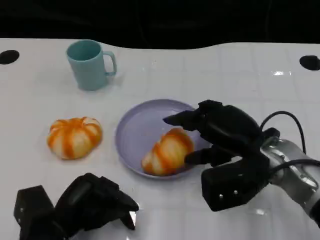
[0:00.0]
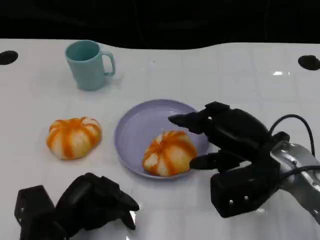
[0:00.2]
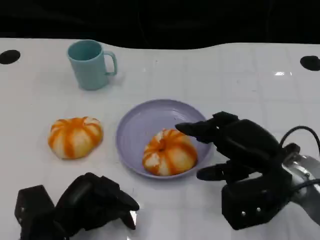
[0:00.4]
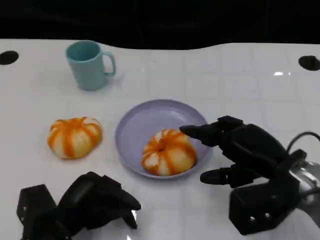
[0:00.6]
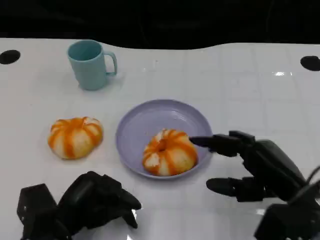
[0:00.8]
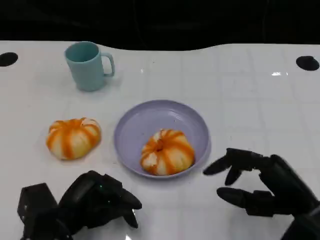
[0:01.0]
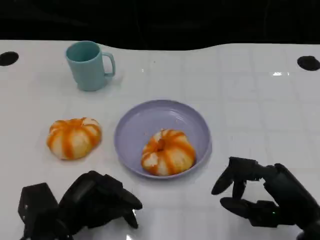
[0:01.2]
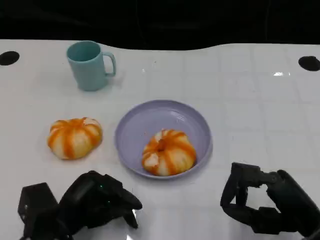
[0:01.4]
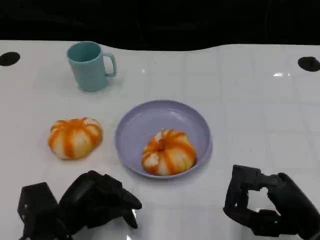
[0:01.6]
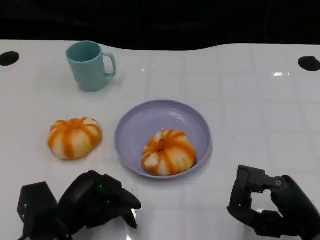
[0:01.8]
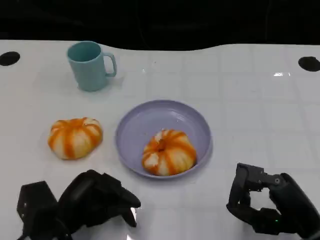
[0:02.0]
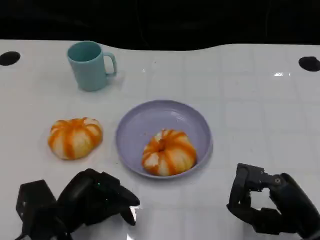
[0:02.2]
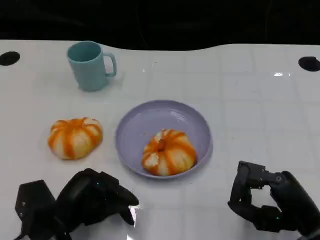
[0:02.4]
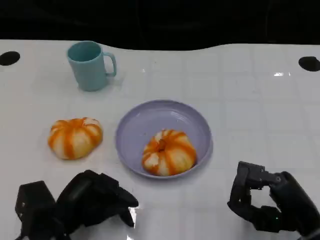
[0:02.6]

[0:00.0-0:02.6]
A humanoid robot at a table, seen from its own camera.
Task of the whole recording: Grasp the bread from the table and place it into the plate.
0:00.0 to 0:01.2: The right hand is displaced backward and to the right by approximately 10 cm.
0:01.2 to 0:02.6: There are only small adjustments of the hands.

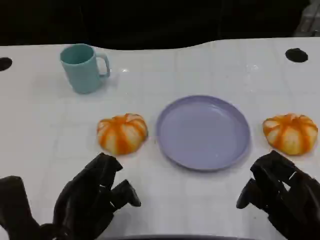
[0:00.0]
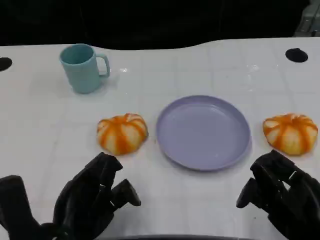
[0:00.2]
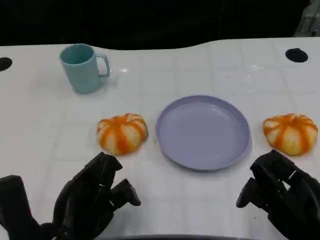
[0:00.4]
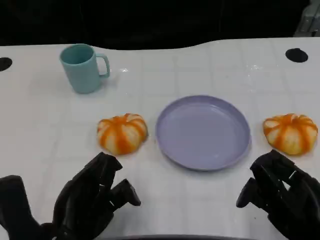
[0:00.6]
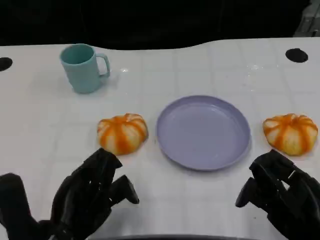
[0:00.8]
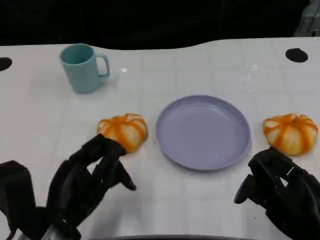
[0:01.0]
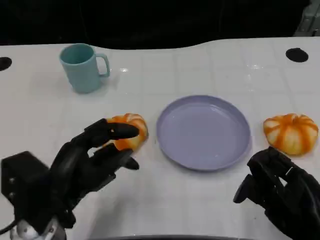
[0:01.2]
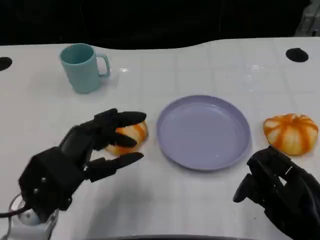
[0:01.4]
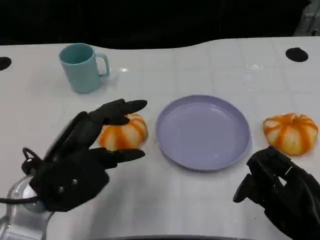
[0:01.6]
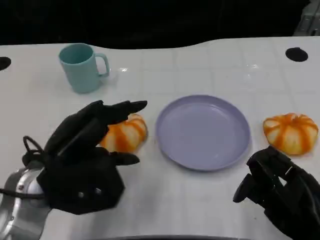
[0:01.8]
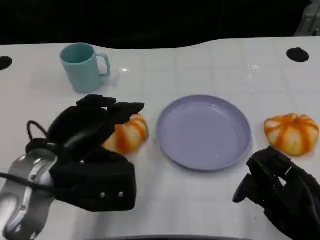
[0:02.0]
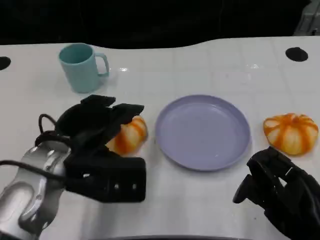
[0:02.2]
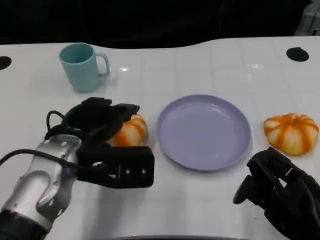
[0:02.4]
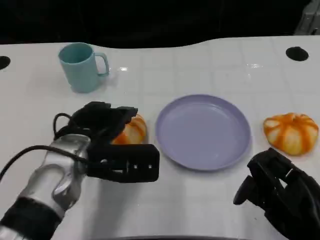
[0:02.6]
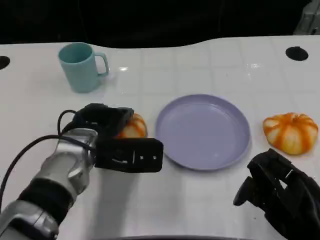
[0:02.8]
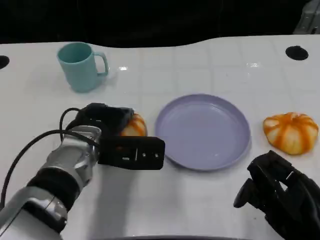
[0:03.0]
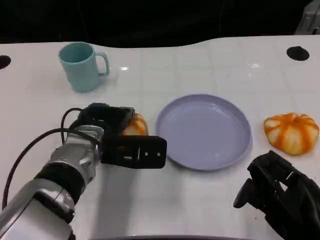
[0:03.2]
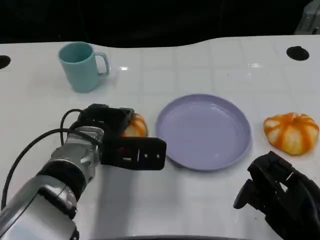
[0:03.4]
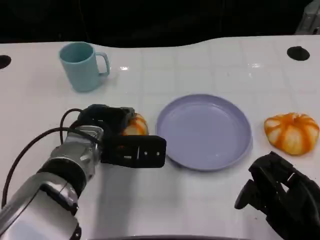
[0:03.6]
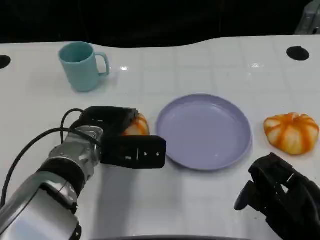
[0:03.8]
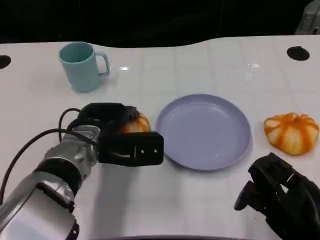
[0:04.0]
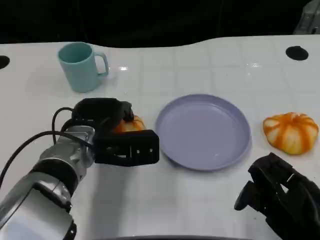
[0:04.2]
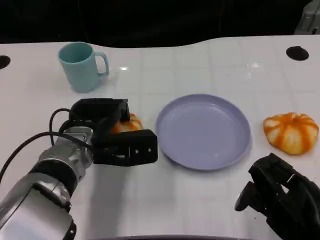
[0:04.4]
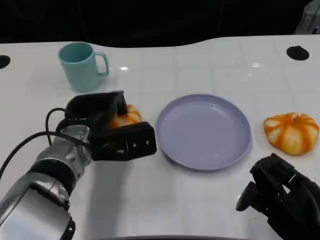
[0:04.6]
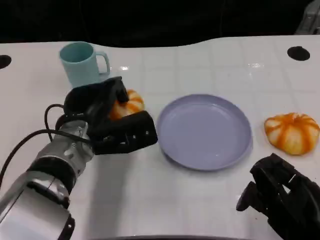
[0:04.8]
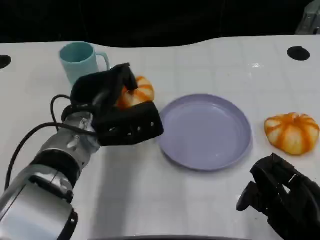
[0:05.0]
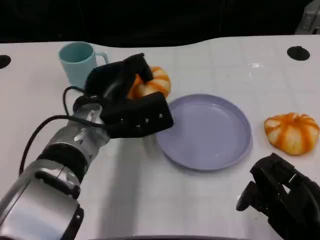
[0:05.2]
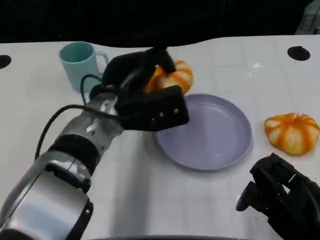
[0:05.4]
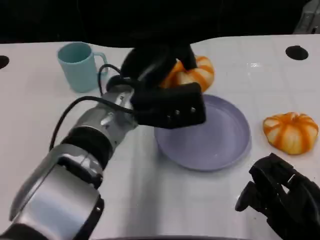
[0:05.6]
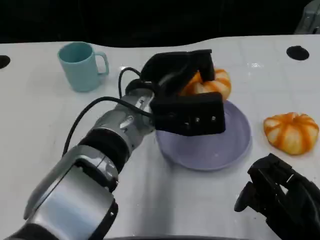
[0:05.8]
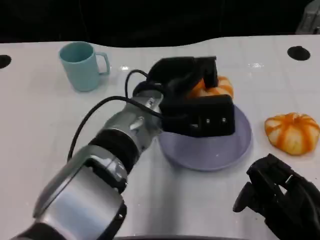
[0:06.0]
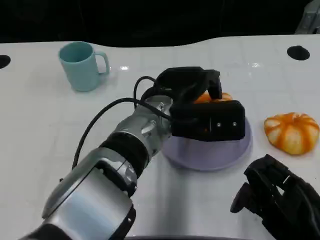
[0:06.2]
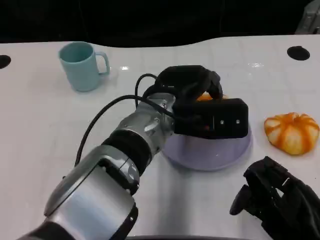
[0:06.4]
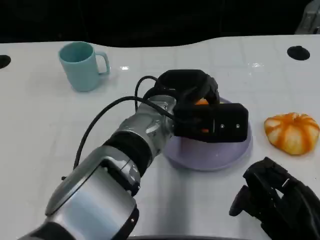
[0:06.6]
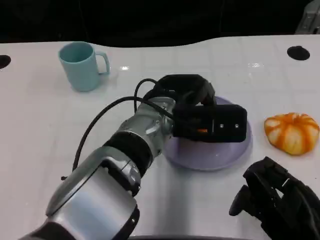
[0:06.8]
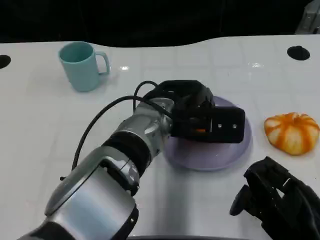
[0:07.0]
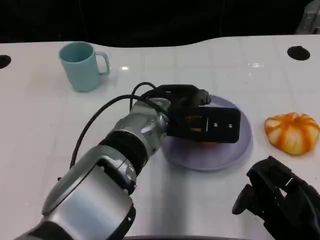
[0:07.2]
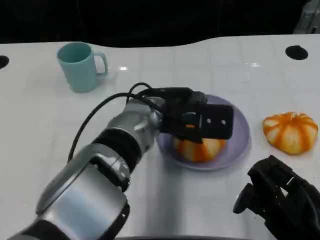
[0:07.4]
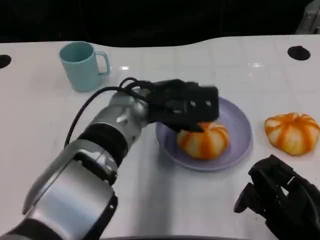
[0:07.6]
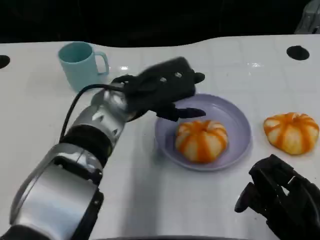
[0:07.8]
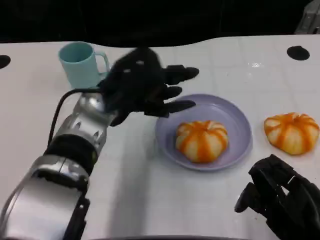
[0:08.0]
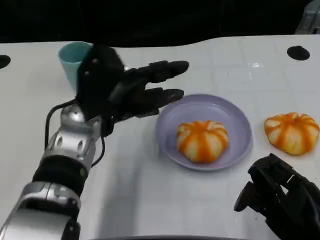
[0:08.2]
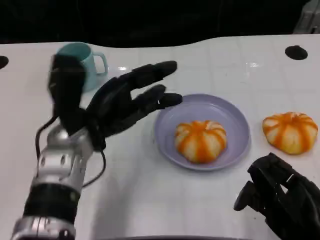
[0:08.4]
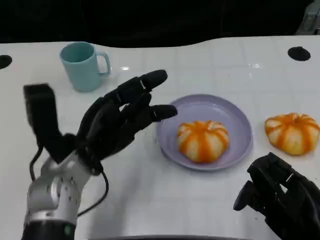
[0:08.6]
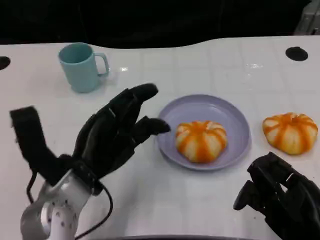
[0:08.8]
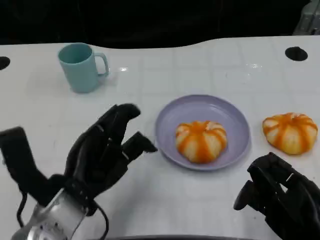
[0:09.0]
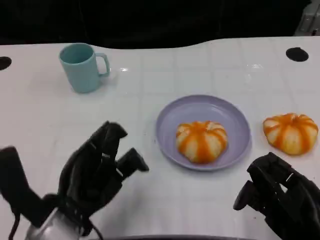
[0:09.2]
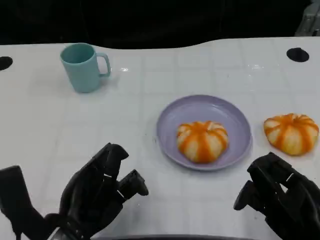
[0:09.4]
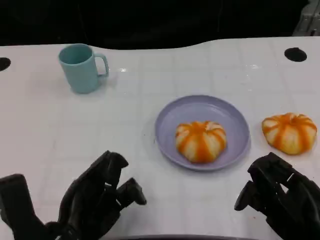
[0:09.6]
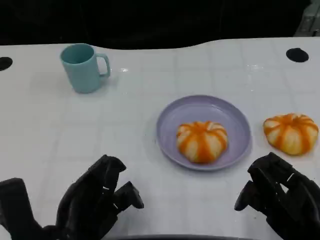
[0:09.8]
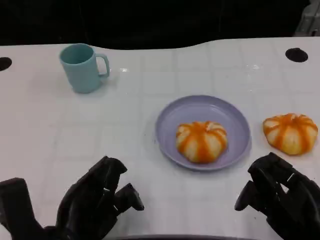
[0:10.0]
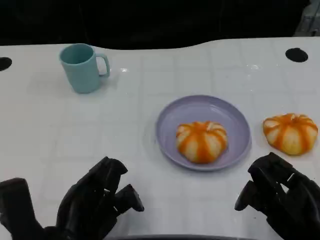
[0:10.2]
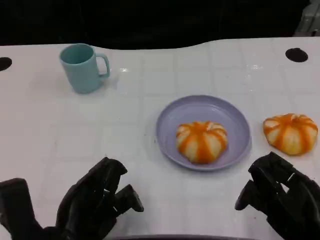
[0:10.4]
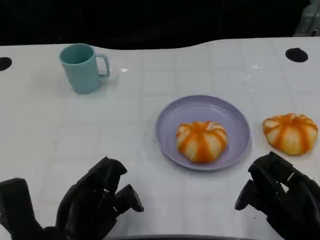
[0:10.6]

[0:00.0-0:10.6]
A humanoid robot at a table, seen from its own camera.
Task of the whole recording: Grasp the bread from the table and place it into the plate.
0:00.0 to 0:01.6: The left hand travels forward and upward by about 10 cm.
0:01.6 to 0:03.0: The left hand goes roughly 10 cm forward and to the right.
0:04.6 to 0:06.0: The left hand shifts approximately 15 cm to the right and upward.
0:07.6 to 0:09.0: The left hand shifts roughly 15 cm backward, to the left and downward.
0:09.0 to 0:10.6: The left hand moves about 5 cm.

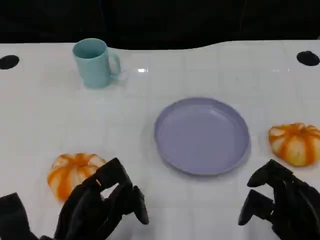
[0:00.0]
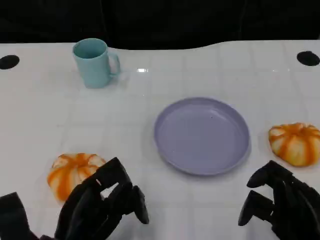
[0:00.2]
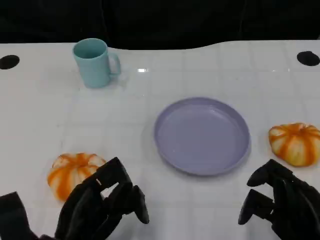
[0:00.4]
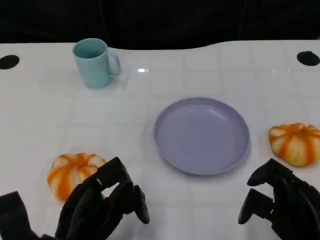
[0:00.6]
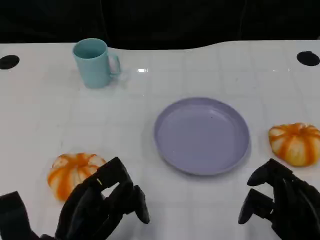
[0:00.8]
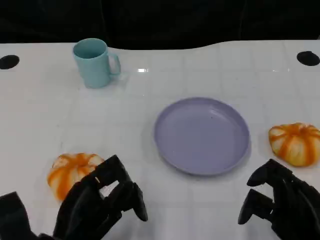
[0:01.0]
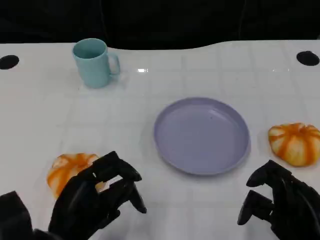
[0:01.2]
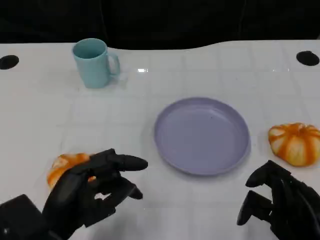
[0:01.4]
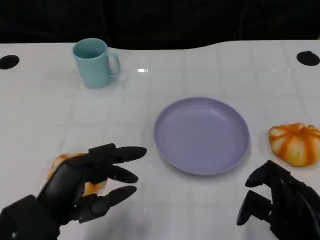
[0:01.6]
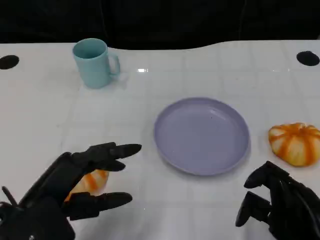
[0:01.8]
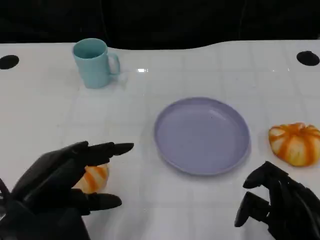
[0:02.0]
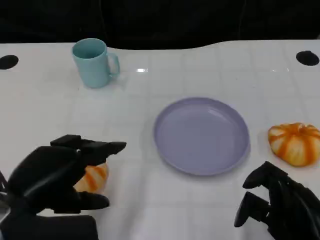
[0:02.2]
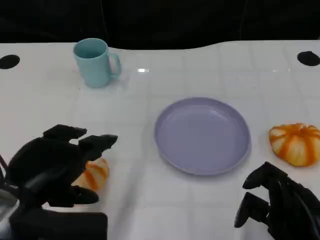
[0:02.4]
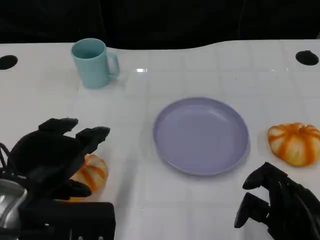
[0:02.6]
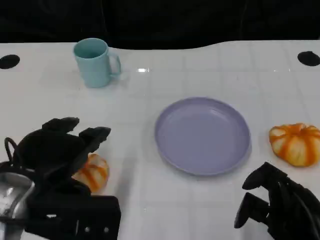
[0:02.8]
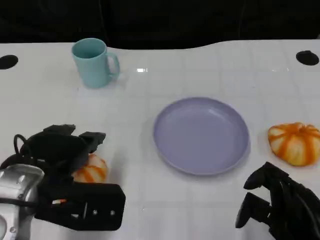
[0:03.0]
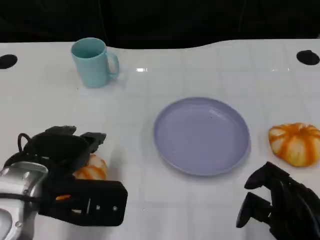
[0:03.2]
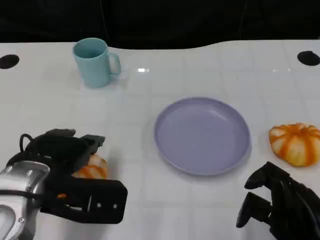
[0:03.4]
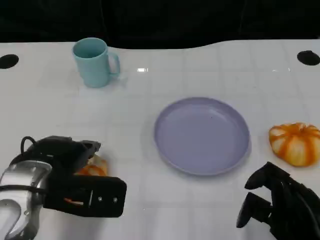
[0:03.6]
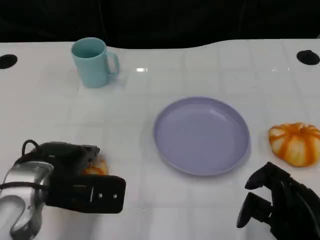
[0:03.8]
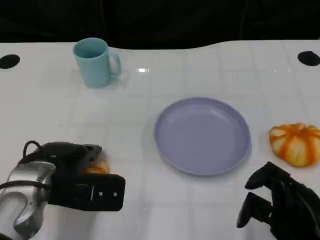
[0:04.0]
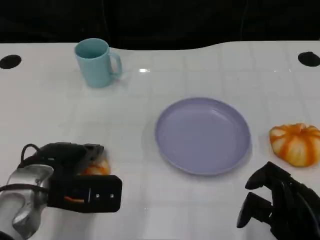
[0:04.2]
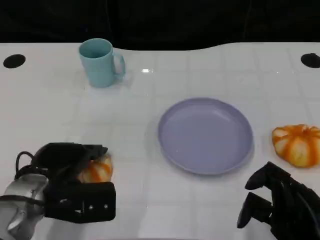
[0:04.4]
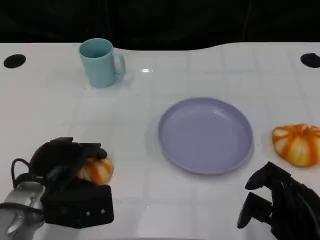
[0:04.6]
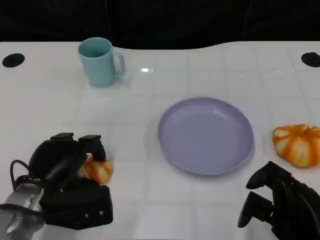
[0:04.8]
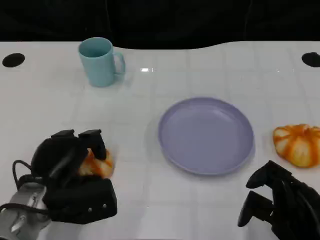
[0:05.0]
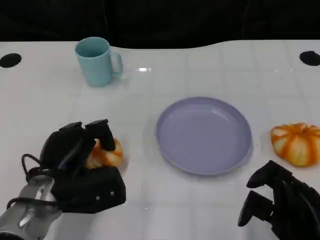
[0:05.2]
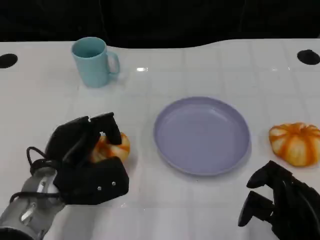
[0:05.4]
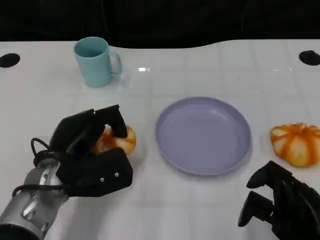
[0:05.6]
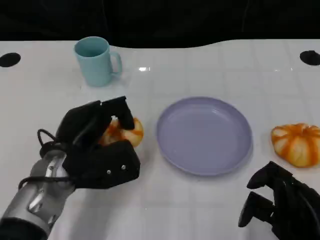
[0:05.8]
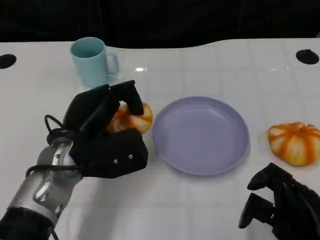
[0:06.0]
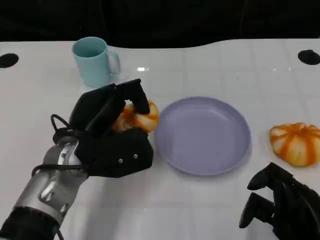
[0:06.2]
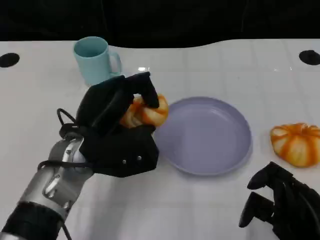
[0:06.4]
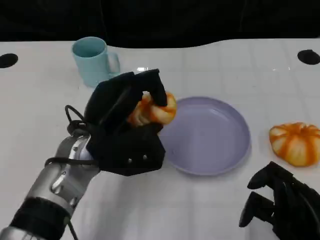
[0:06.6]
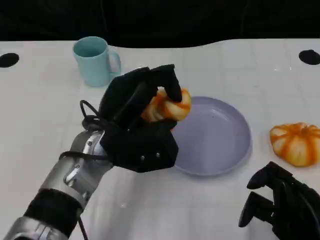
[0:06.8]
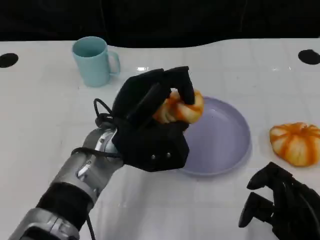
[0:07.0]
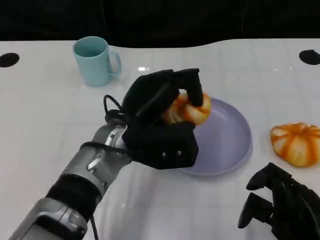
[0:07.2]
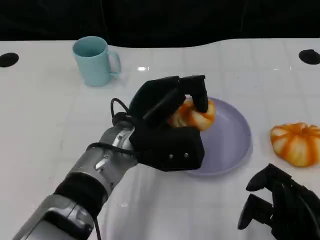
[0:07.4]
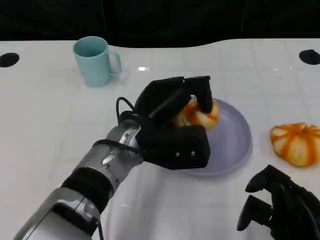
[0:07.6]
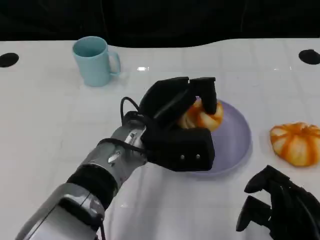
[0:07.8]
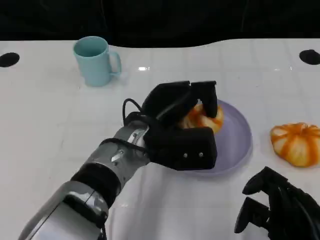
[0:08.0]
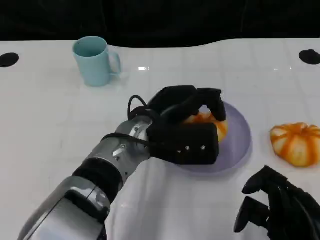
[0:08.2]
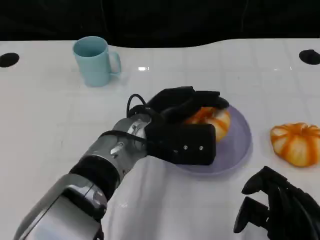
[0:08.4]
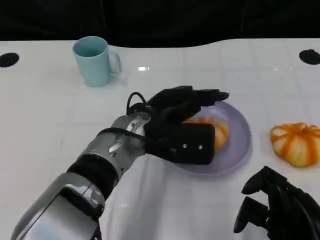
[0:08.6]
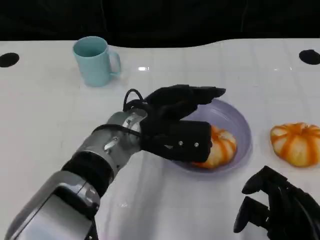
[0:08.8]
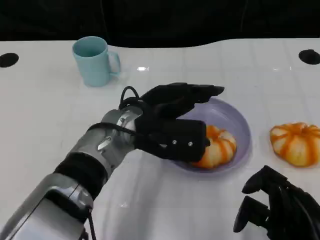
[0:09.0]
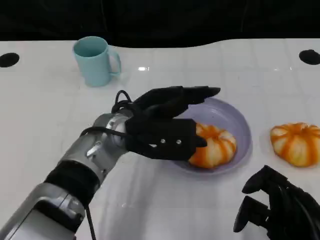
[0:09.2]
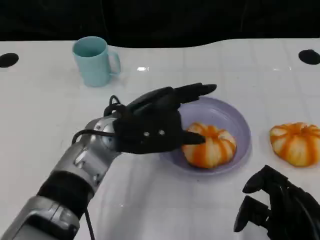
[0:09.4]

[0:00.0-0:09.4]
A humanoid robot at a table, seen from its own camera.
Task of the whole recording: Grasp the bread from the table and place it into the plate.
0:00.0 to 0:01.6: The left hand ends up about 5 cm from where it was.
0:01.6 to 0:03.2: The left hand travels forward by approximately 5 cm.
0:03.2 to 0:04.8: The left hand shifts some 10 cm downward.
0:04.8 to 0:06.2: The left hand moves upward and to the right, about 10 cm.
0:06.2 to 0:07.8: The left hand goes roughly 10 cm to the right.
0:07.8 to 0:09.4: The left hand moves about 5 cm.
